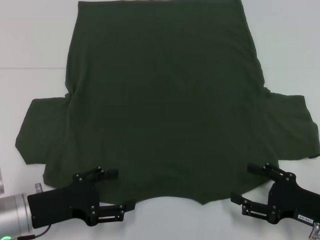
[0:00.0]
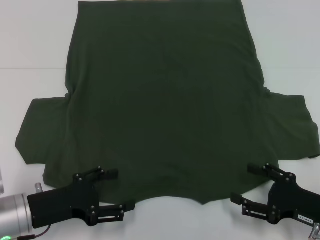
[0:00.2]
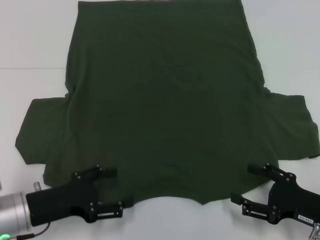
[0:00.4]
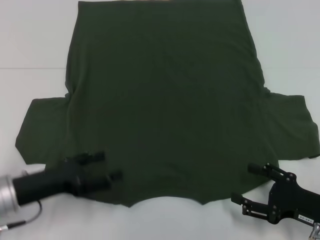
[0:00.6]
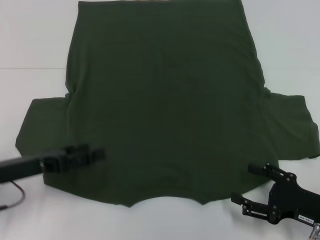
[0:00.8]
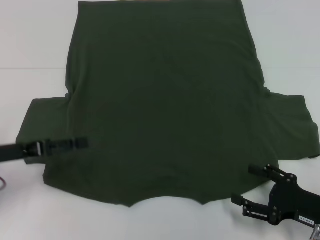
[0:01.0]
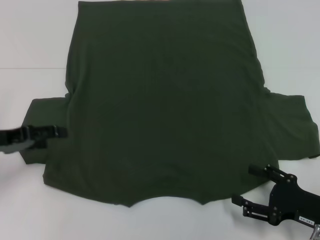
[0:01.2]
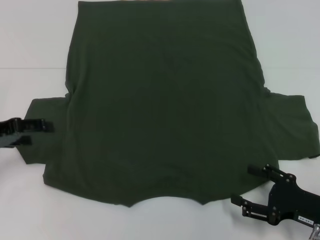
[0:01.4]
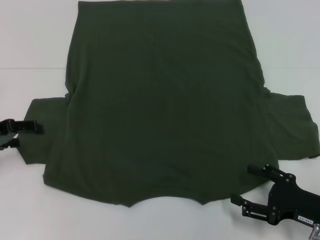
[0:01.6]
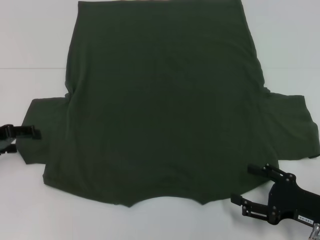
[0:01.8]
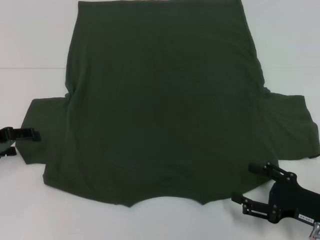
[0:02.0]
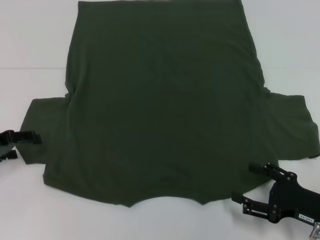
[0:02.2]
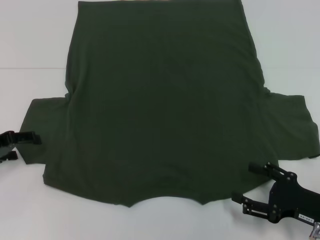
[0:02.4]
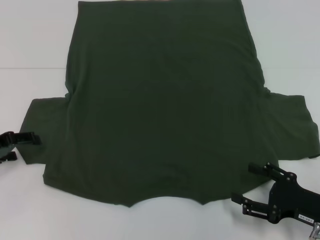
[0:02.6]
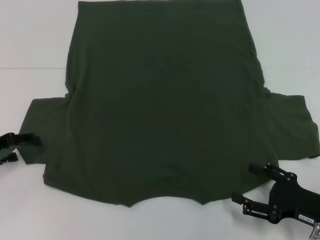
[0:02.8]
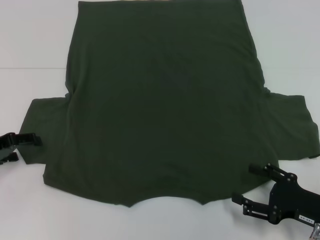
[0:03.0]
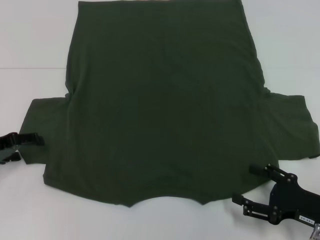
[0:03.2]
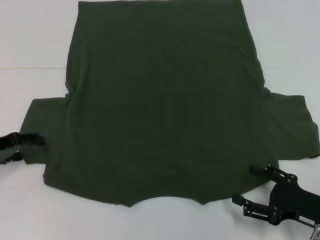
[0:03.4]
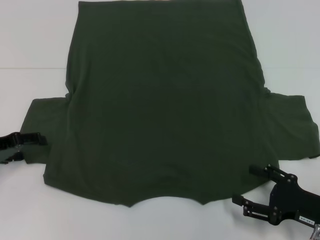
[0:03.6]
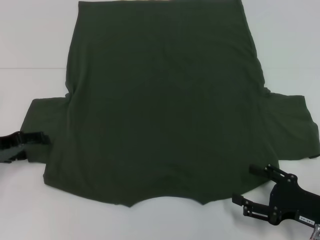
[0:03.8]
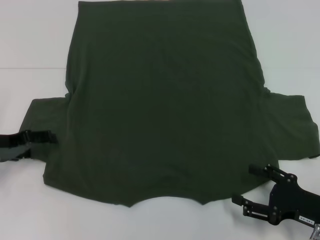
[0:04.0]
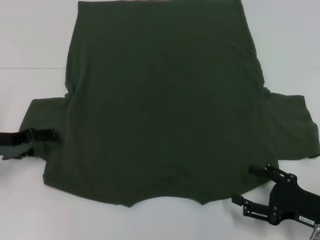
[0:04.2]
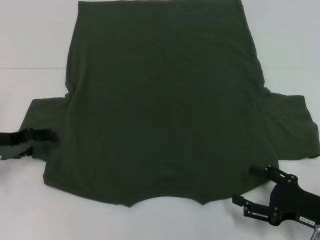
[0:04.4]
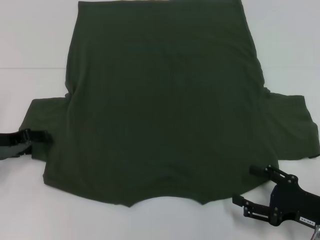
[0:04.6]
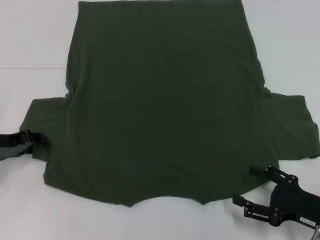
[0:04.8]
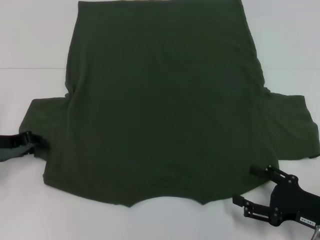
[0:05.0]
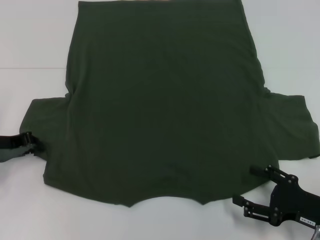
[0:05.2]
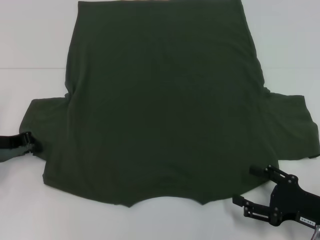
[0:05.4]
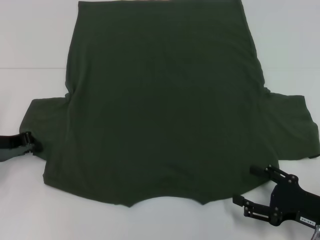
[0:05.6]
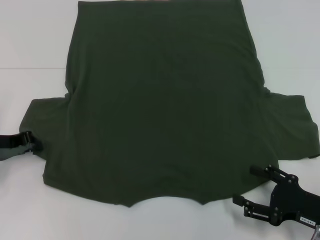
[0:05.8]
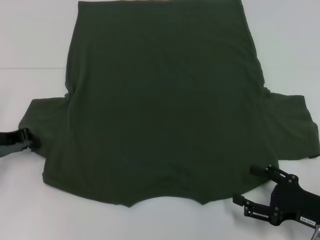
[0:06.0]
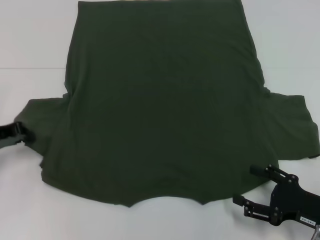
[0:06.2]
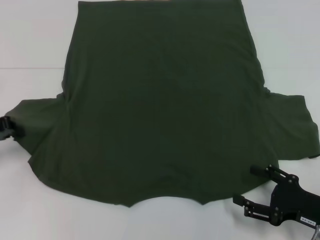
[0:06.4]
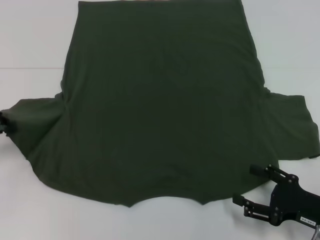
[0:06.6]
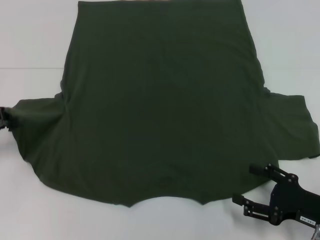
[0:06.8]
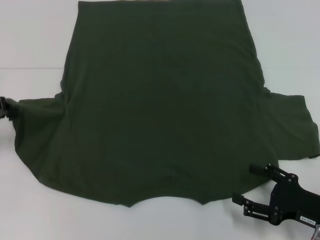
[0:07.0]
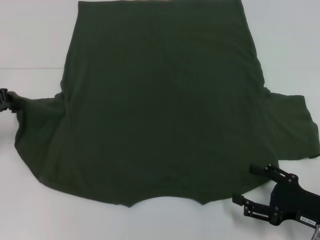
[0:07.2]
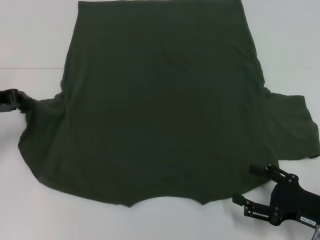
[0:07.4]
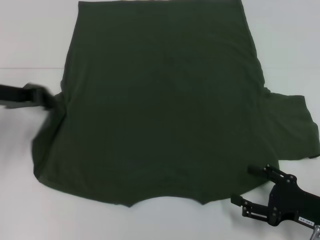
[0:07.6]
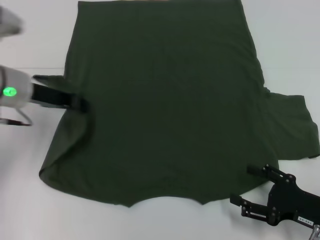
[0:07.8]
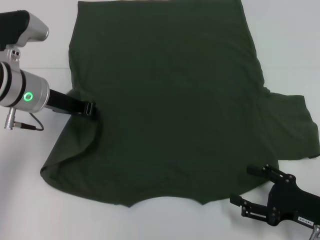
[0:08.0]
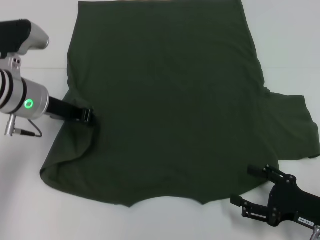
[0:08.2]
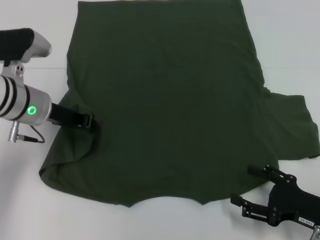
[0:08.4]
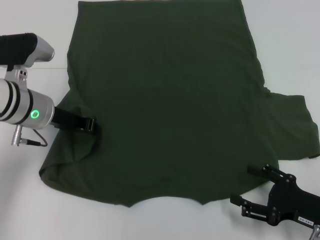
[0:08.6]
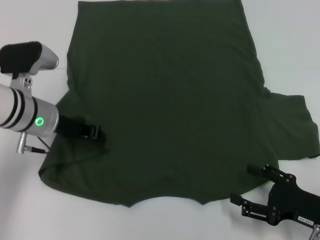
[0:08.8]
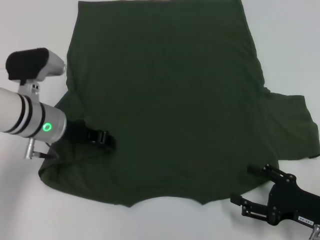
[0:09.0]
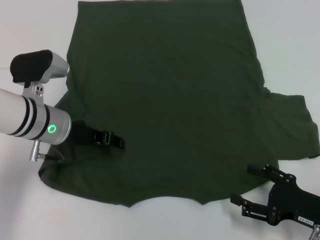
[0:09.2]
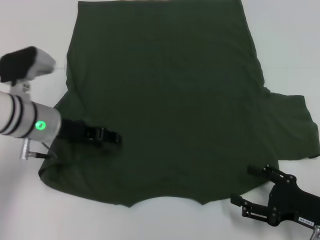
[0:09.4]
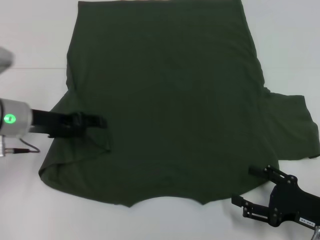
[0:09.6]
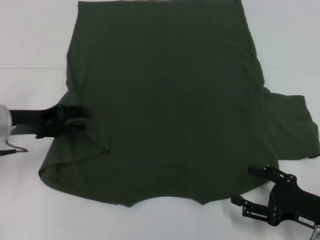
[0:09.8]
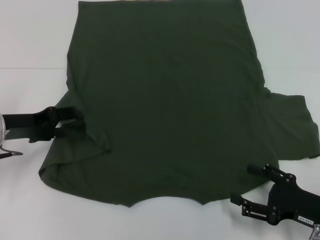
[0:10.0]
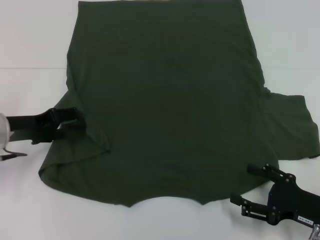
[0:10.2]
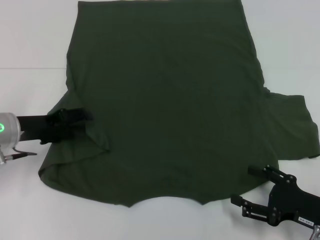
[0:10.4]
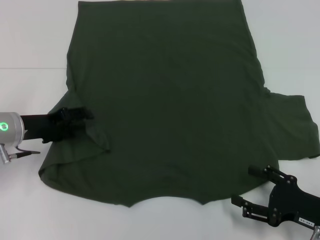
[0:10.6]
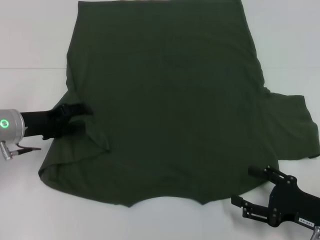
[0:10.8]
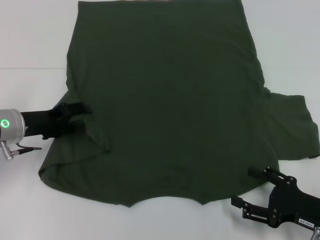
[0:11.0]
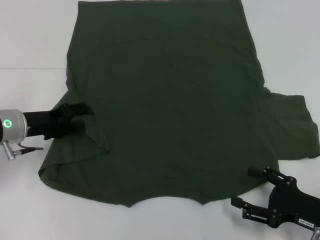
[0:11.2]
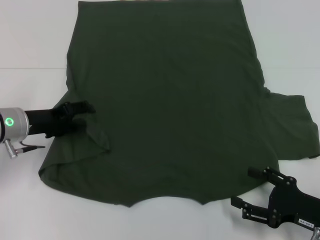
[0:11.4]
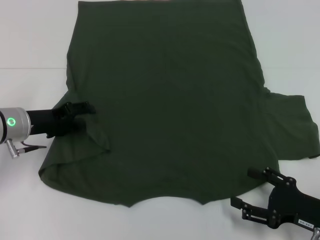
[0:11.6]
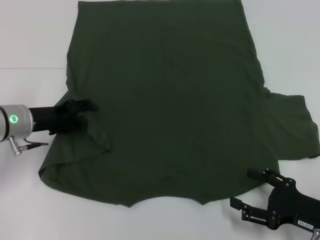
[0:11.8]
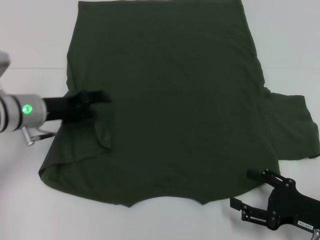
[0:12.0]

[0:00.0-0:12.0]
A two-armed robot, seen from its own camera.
0:00.0 to 0:01.6: The left gripper goes roughly 15 cm to the left, forward and upward.
0:01.6 to 0:04.4: The grippers move only a little.
0:04.4 to 0:06.0: The left gripper closes its fingers.
0:06.0 to 0:07.6: The left gripper travels upward by some 5 cm.
0:07.6 to 0:09.0: The left gripper goes some 10 cm to the right.
0:09.0 to 0:10.4: The left gripper travels to the left by some 10 cm, and opens.
0:10.4 to 0:12.0: There are only small adjustments of the grippers.

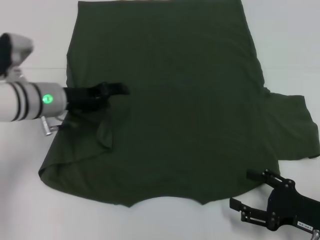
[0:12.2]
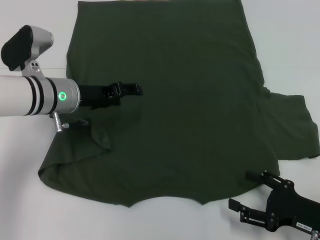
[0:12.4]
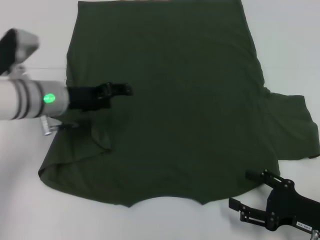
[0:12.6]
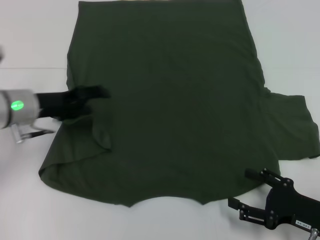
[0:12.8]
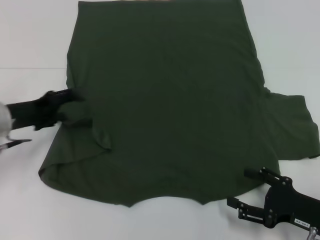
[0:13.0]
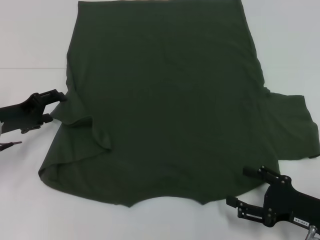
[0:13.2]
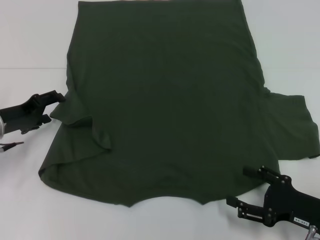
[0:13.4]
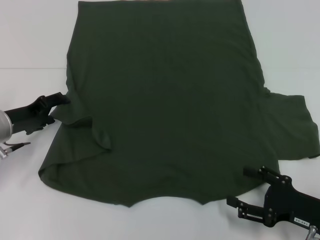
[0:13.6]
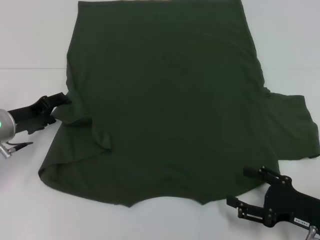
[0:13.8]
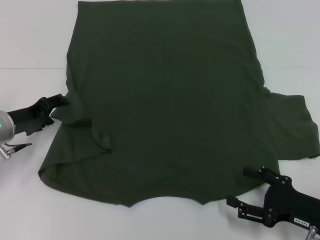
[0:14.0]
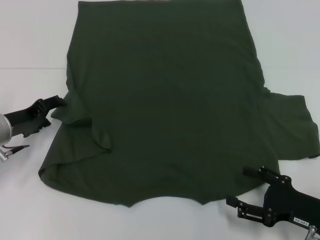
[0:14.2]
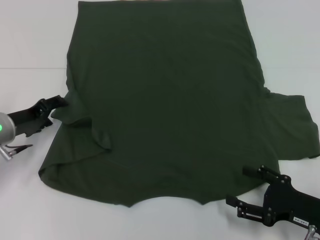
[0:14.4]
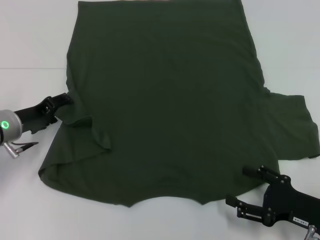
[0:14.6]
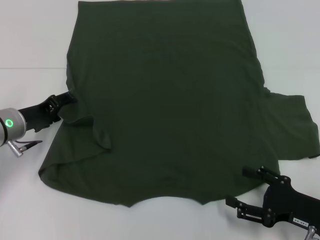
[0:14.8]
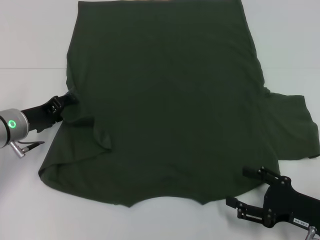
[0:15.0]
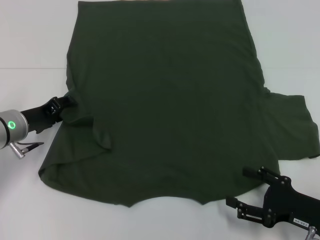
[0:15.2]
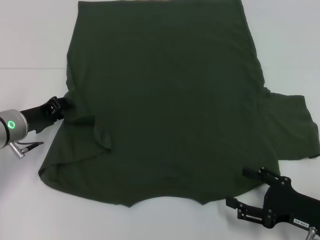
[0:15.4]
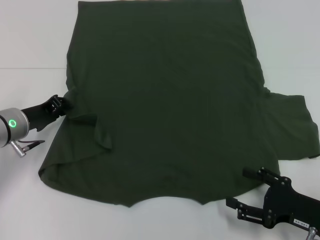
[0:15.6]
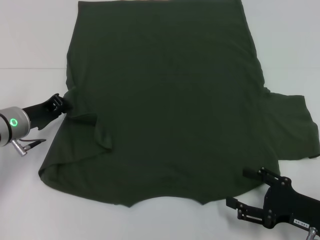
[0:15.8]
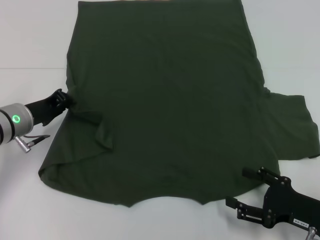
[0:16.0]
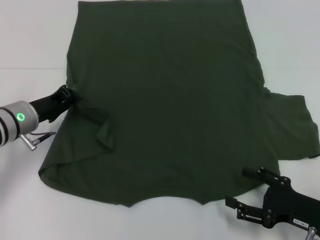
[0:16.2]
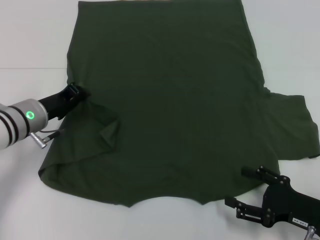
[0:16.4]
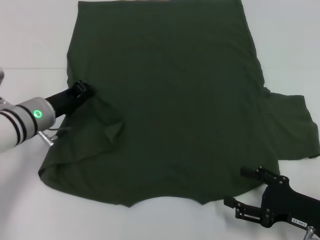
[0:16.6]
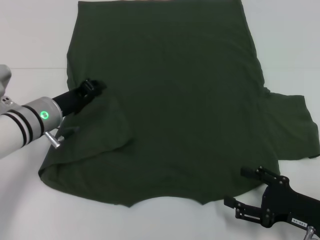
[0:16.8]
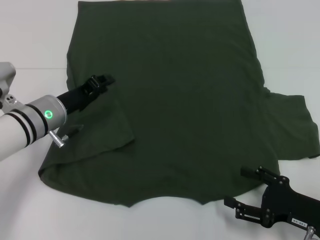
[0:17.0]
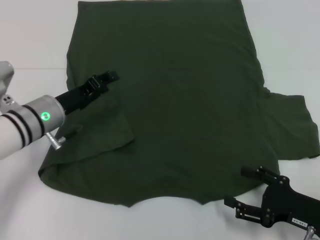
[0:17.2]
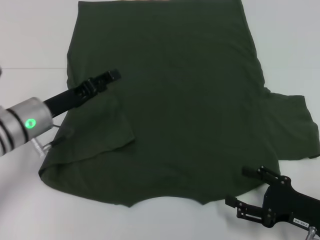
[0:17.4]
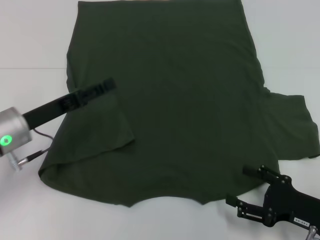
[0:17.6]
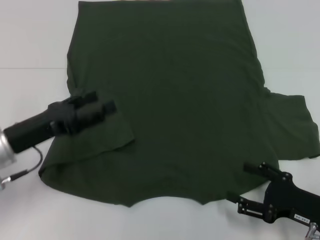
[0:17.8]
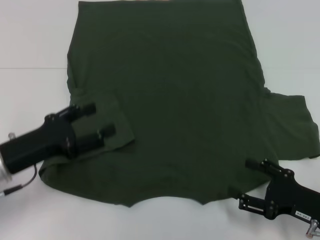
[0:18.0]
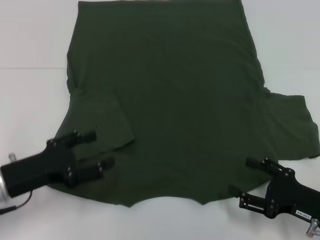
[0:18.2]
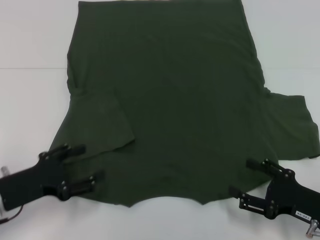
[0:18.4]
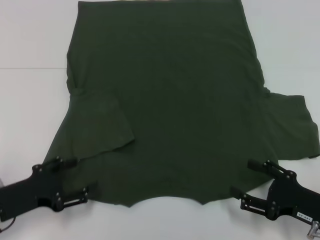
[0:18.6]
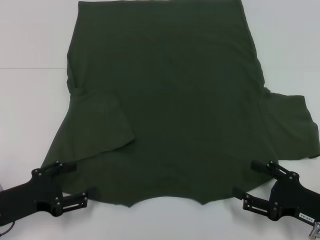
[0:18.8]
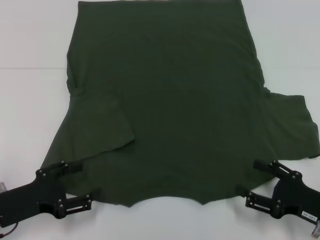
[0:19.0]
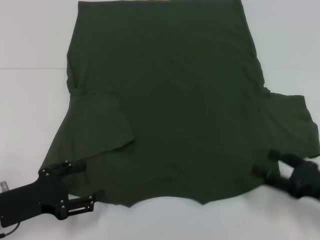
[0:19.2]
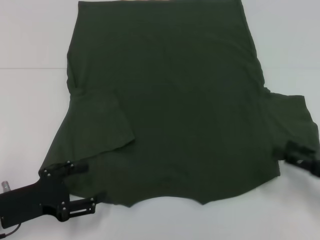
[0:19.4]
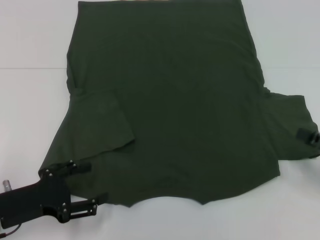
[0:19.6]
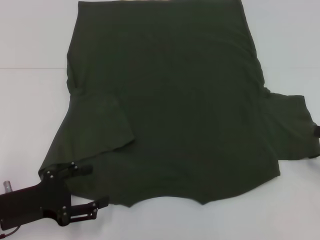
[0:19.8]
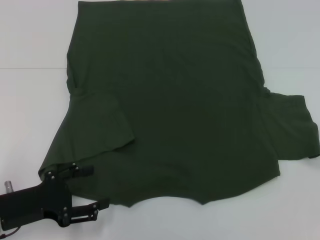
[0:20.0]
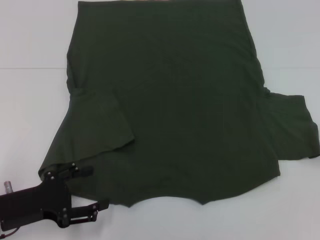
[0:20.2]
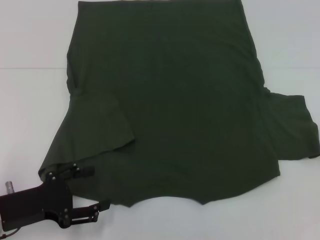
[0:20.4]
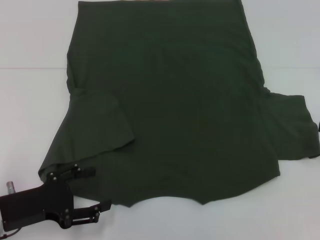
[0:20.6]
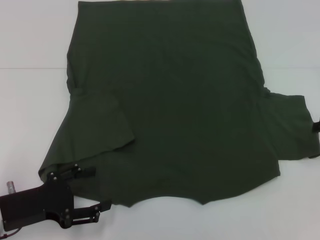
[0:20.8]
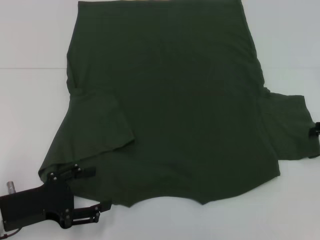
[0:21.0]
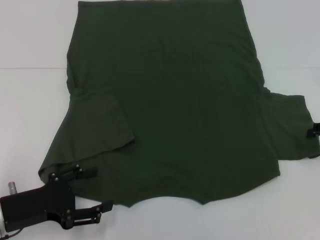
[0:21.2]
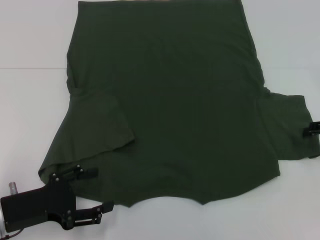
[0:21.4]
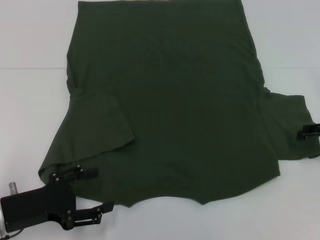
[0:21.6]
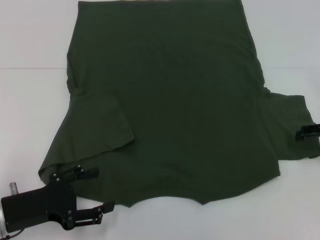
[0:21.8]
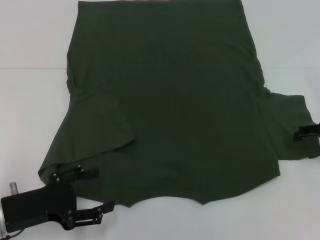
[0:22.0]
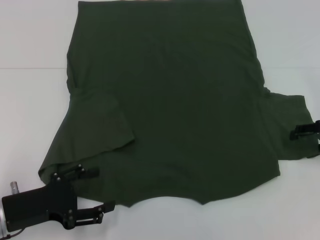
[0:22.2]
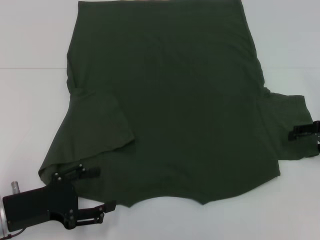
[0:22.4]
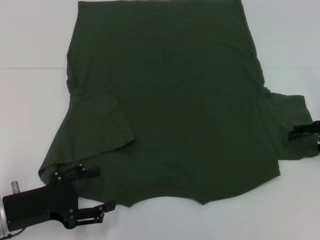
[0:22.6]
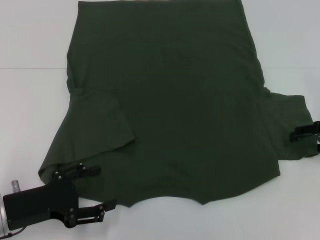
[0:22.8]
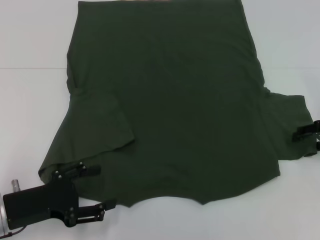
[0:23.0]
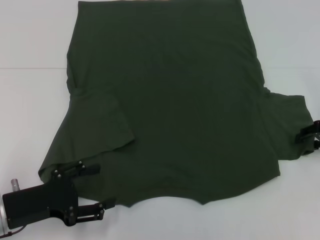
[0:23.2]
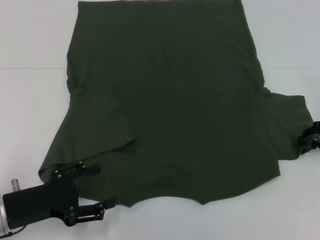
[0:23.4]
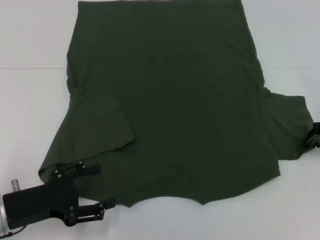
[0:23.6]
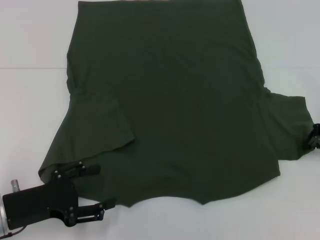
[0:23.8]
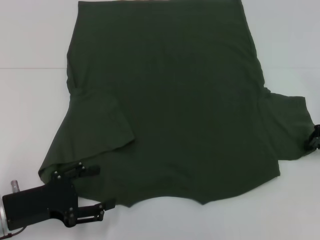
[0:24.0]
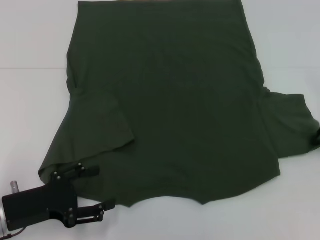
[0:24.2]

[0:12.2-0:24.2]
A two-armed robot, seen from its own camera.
Step, 0:12.2 to 0:17.4: Fold the bottom left sleeve with your left hand.
0:12.2 to 0:13.8: The left gripper shifts about 10 cm to the left.
0:13.8 to 0:15.2: The grippers stay close to where they were, moving slightly.
0:15.2 to 0:16.6: The left gripper closes its fingers.
0:16.6 to 0:18.2: The left gripper goes roughly 10 cm backward, and opens.
0:18.2 to 0:19.8: The right gripper moves to the right and upward, roughly 15 cm.
0:21.2 to 0:22.6: The grippers move only a little.
0:22.6 to 0:24.2: The right gripper closes up.
